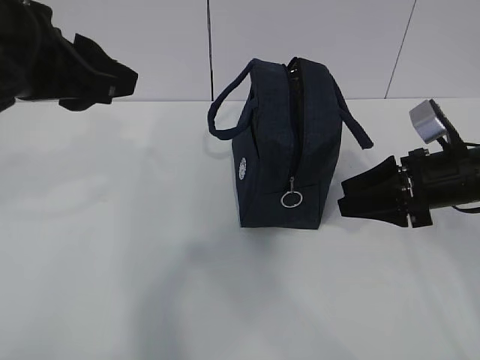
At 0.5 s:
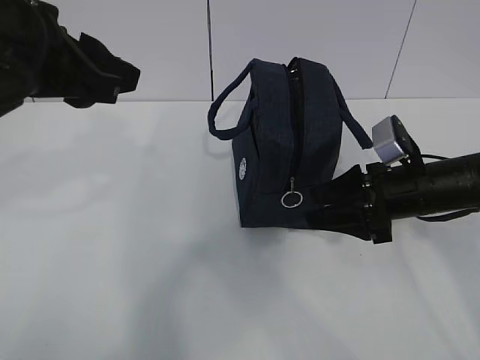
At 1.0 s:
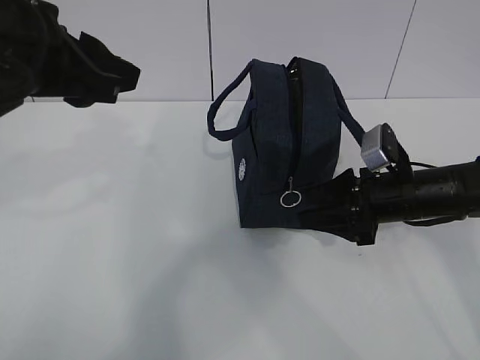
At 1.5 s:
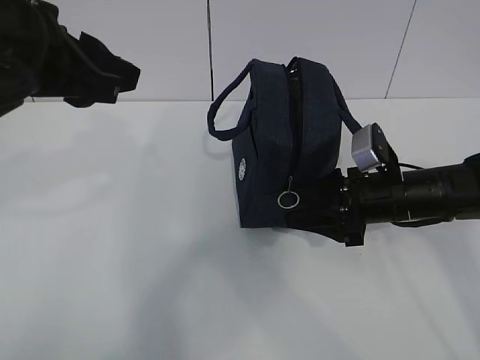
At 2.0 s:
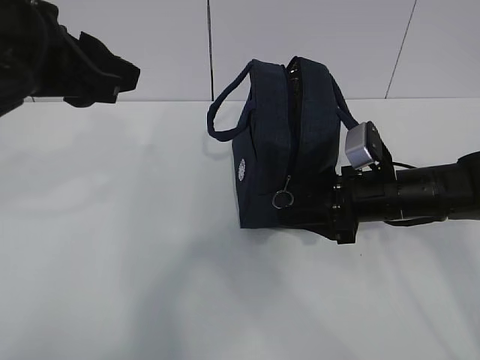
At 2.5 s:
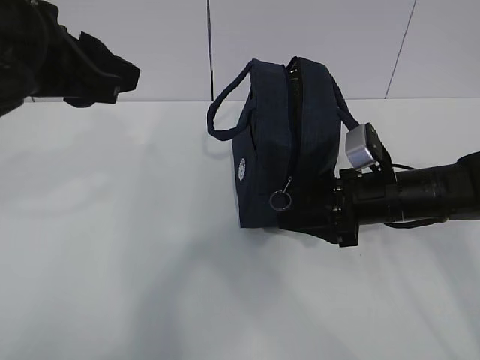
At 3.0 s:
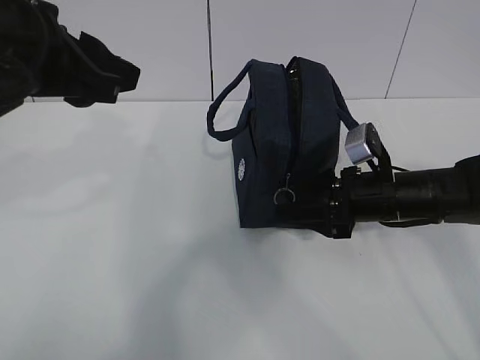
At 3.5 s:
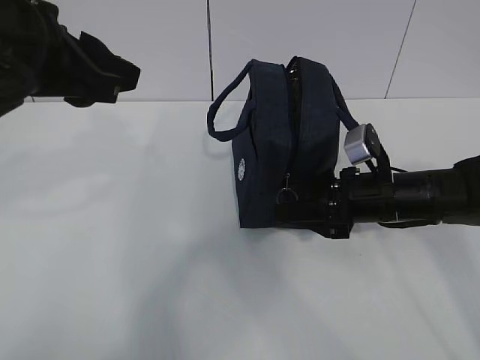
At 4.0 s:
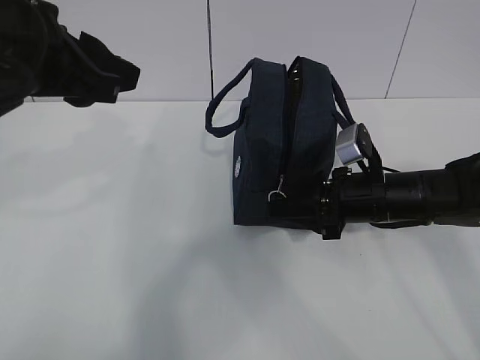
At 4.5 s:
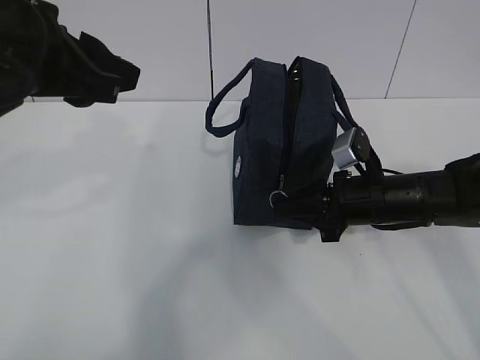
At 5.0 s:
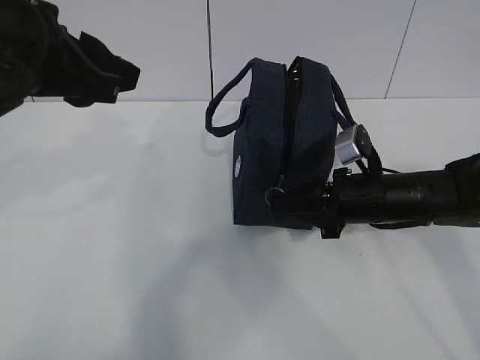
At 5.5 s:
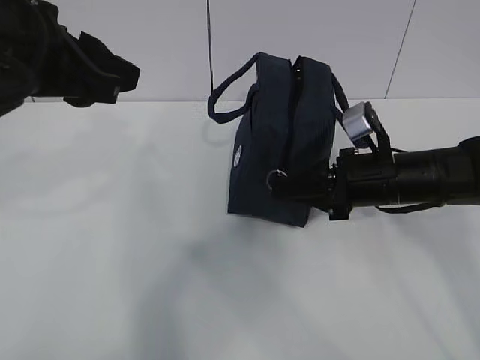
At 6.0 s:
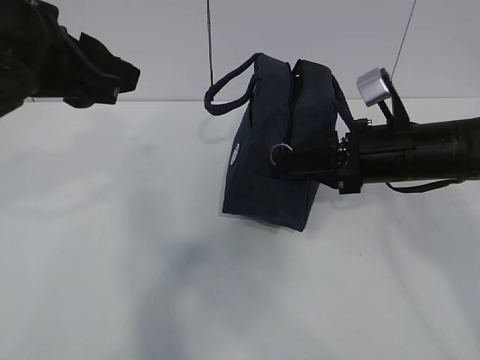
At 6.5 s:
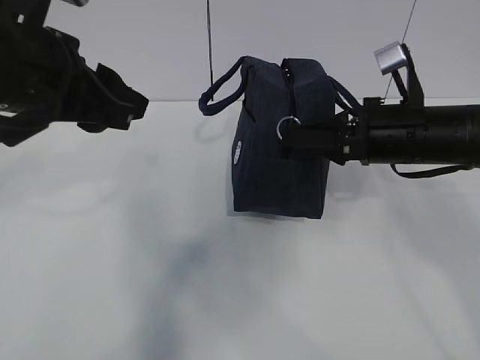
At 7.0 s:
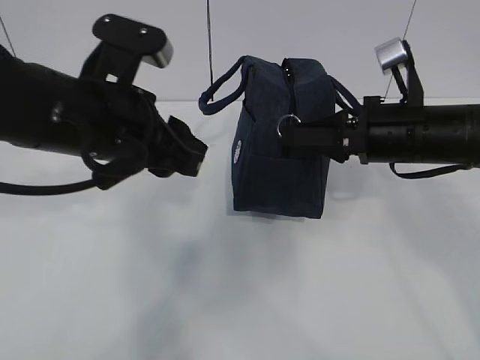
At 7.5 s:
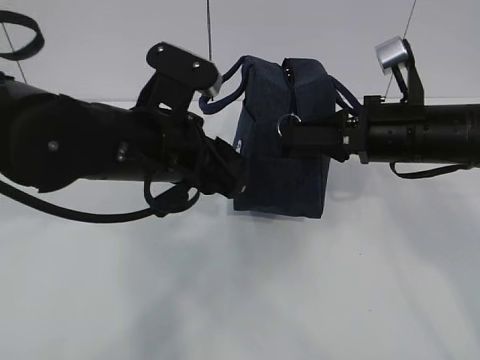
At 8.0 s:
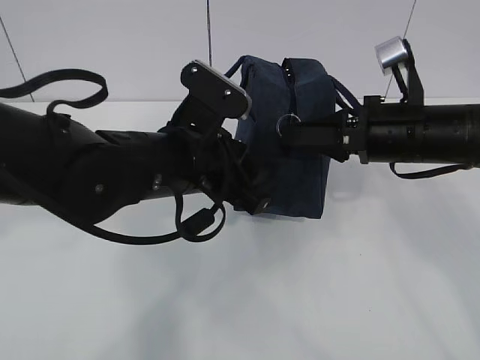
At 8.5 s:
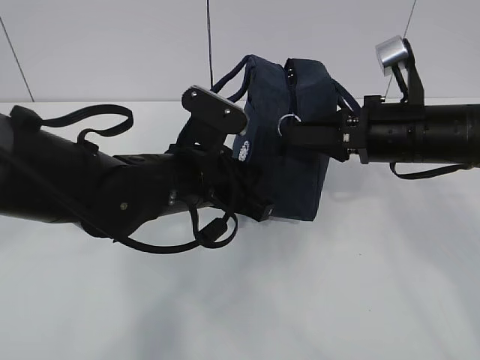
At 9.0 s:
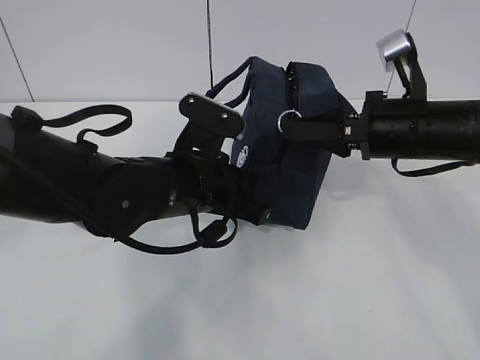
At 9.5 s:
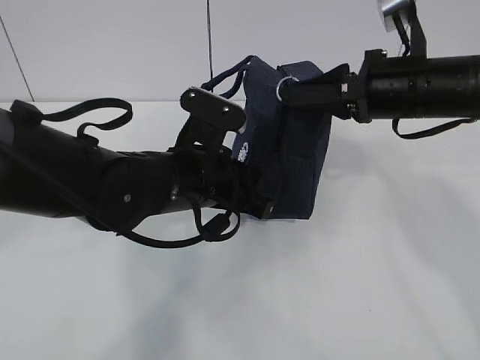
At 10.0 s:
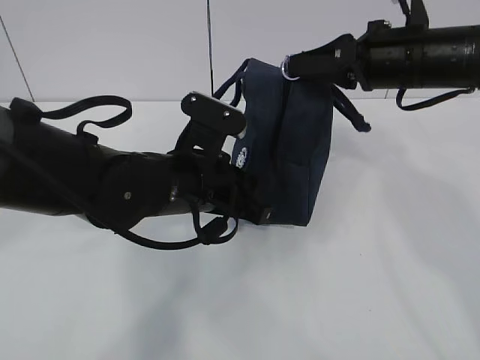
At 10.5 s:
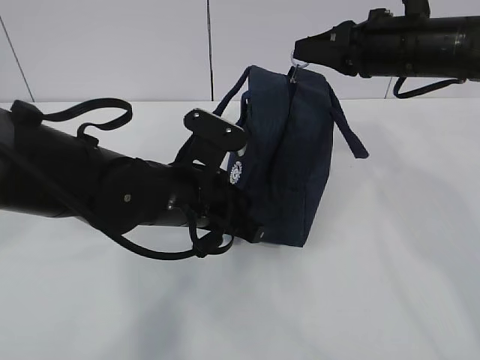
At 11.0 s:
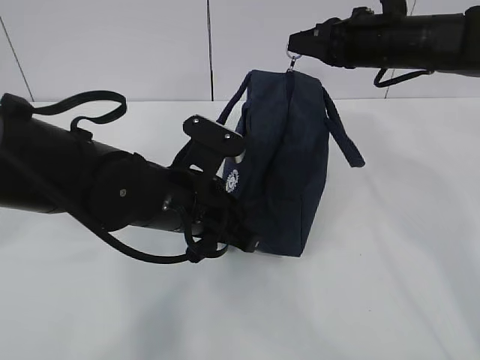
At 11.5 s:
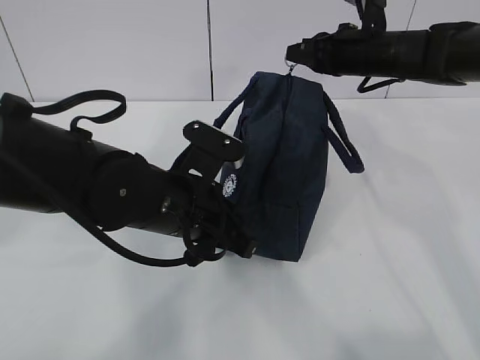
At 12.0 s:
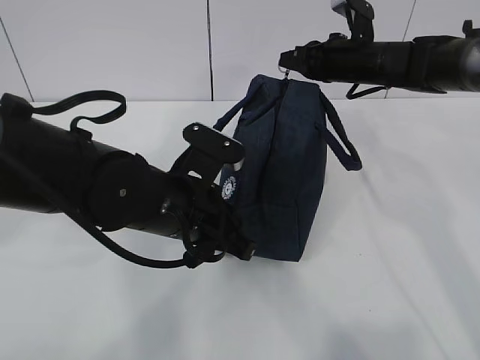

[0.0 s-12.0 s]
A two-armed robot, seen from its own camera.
Step, 1.5 to 5.5 s: Pull the zipper with your right hand.
Step, 6.0 to 7.0 s: Grab the lunch bag with your left hand.
0.0 to 2.0 s: The right gripper goes roughly 5 cm to the left.
2.0 to 4.0 s: The grippers make only small movements.
4.0 to 6.0 s: The right gripper goes approximately 10 cm upward, and closes its fingers.
6.0 to 8.0 s: The left gripper goes approximately 15 cm downward and to the right.
8.0 to 10.0 s: The right gripper goes some 5 cm upward. The left gripper closes its fingers.
10.0 to 12.0 s: The right gripper shifts some 15 cm forward and downward.

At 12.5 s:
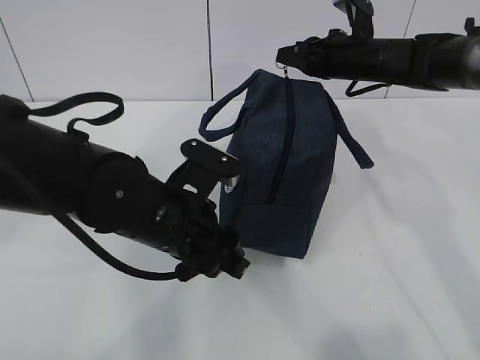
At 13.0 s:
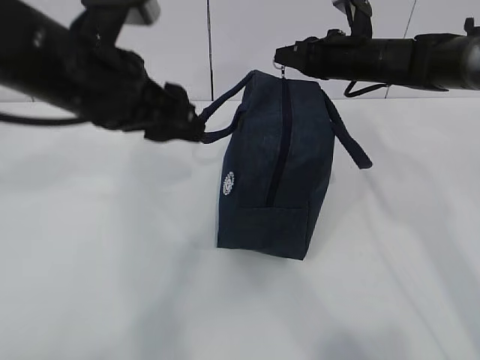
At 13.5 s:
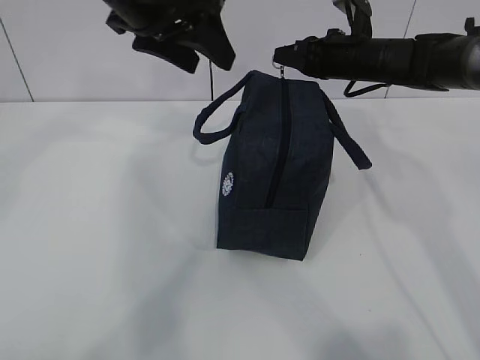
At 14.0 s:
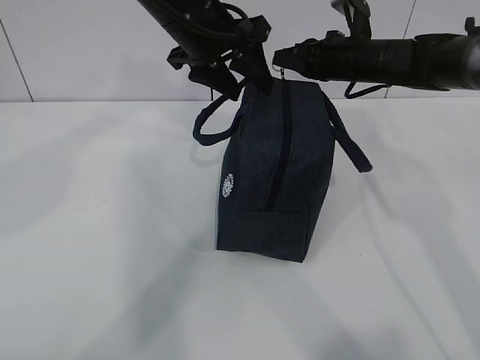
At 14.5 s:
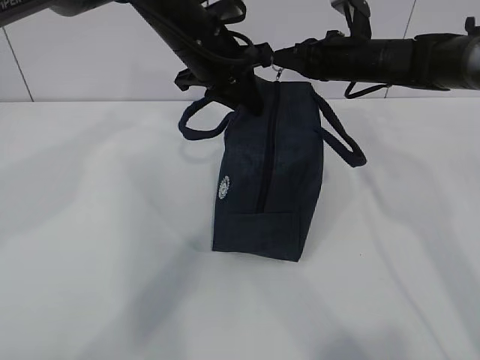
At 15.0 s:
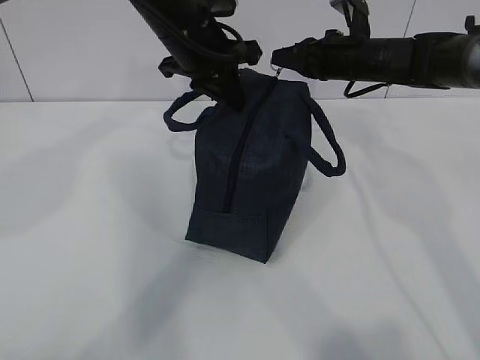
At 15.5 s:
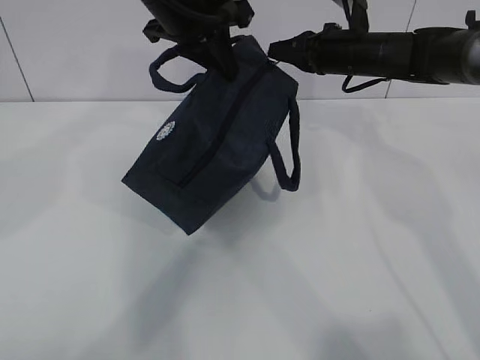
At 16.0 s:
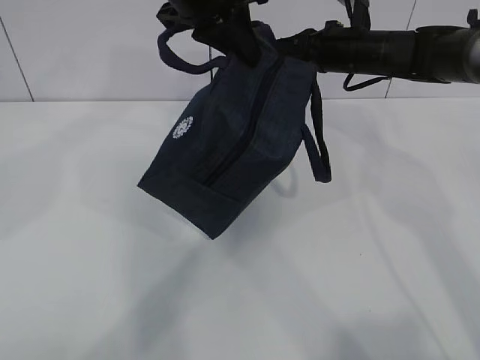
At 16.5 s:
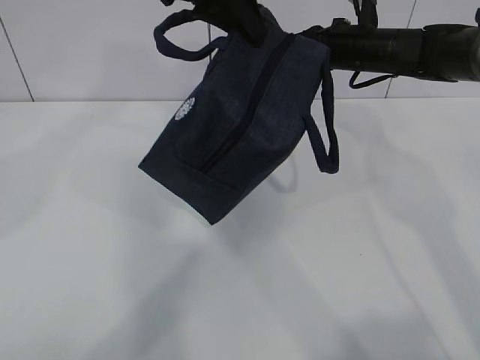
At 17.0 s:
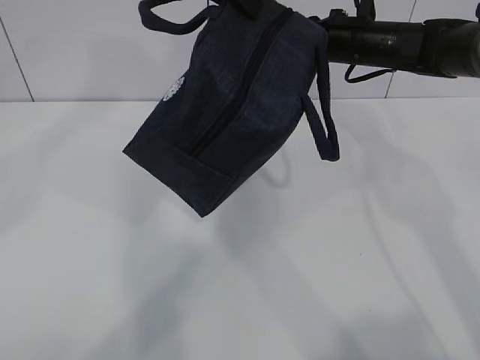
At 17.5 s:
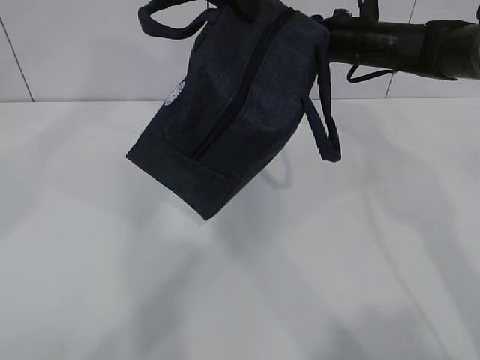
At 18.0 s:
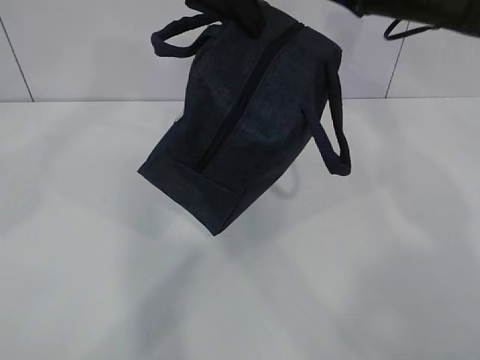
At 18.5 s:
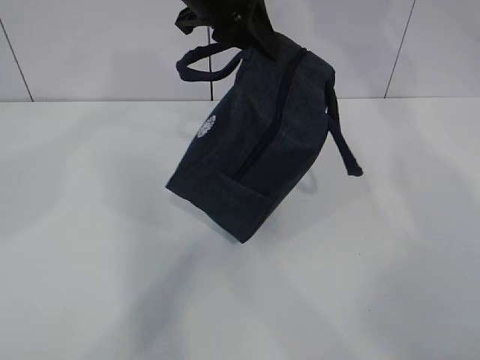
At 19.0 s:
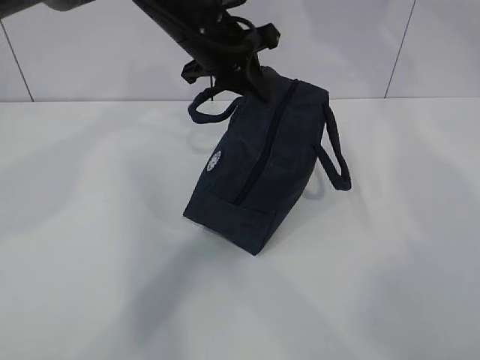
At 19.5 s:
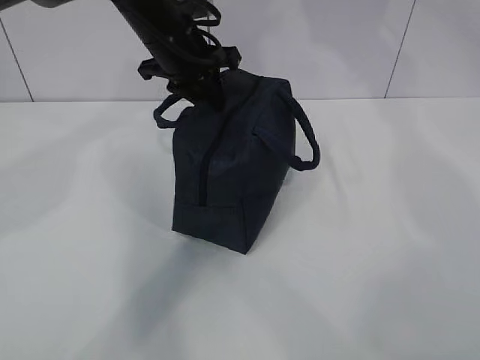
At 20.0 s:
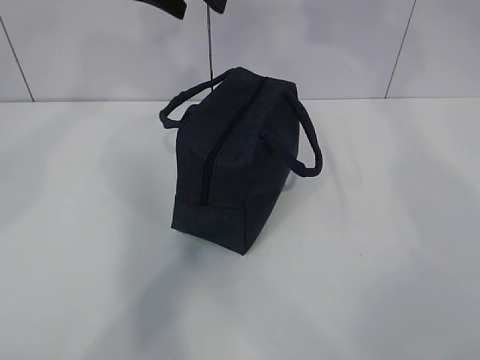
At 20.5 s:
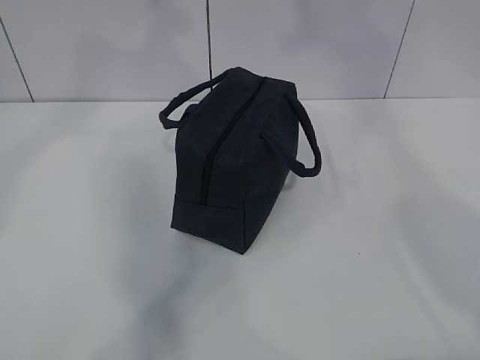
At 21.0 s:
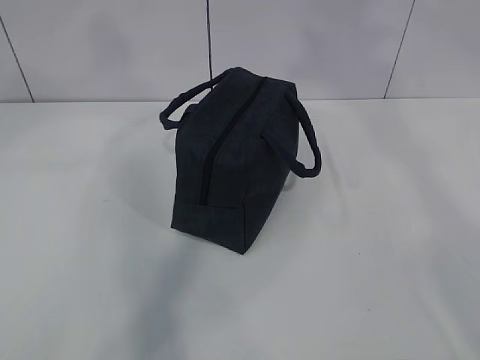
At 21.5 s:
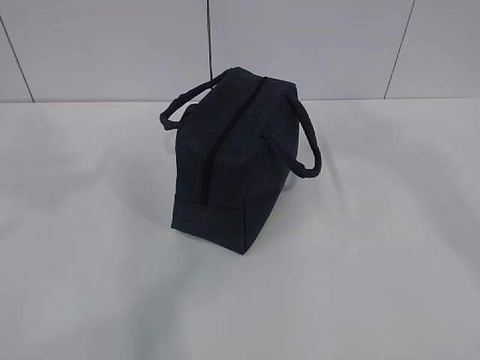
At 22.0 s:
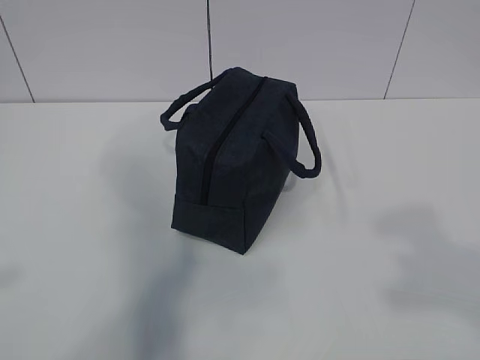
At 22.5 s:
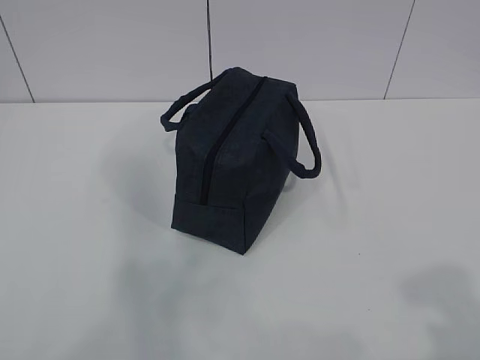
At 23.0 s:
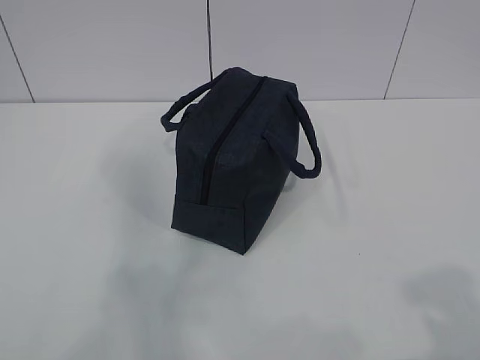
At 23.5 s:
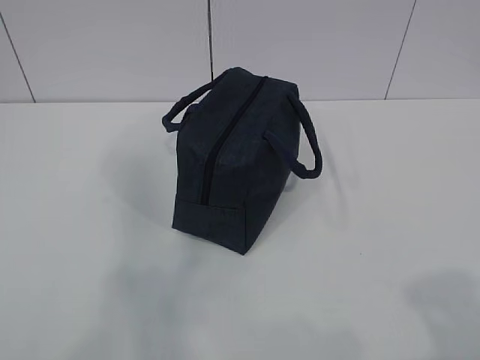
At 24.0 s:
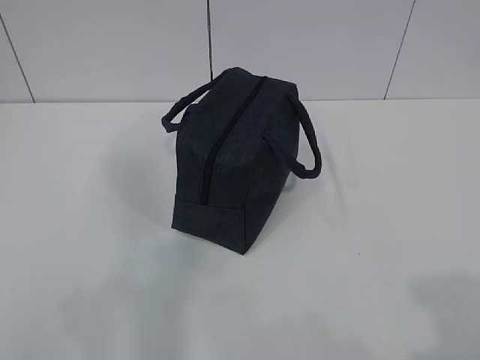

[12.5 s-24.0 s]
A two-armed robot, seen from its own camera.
12.5 to 14.5 s: The left gripper moves forward and upward, about 20 cm, and closes its fingers.
14.5 to 16.5 s: The left gripper shifts some 15 cm upward and backward.
16.5 to 18.5 s: The right gripper moves upward and to the right, some 20 cm, and opens.
18.5 to 20.0 s: The left gripper is displaced to the left by roughly 5 cm, travels downward and back again, about 10 cm each way, and opens its fingers, while the right gripper moves some 5 cm.
20.0 to 22.0 s: The left gripper heads backward and to the left, covering some 40 cm. The right gripper moves backward, roughly 40 cm.
22.0 to 24.0 s: The grippers both shift downward by about 10 cm.

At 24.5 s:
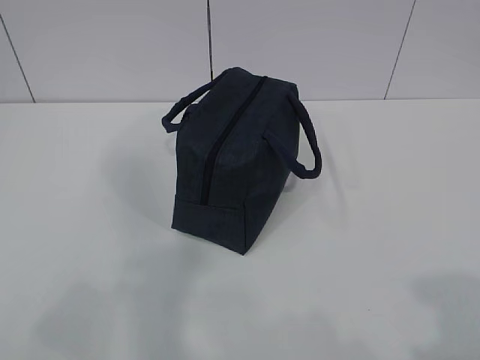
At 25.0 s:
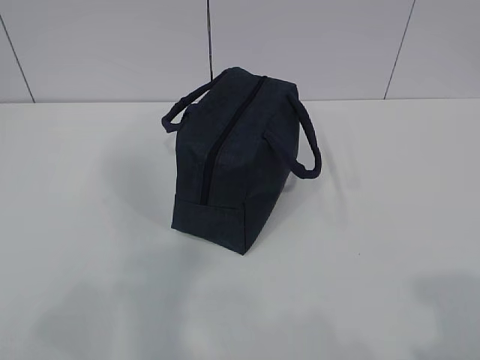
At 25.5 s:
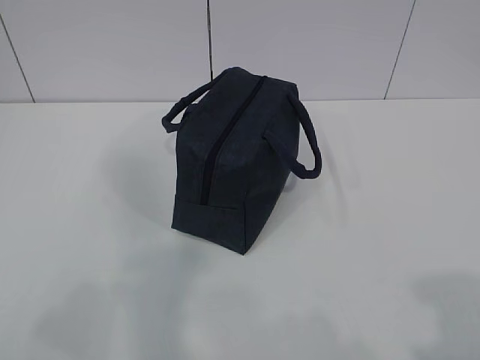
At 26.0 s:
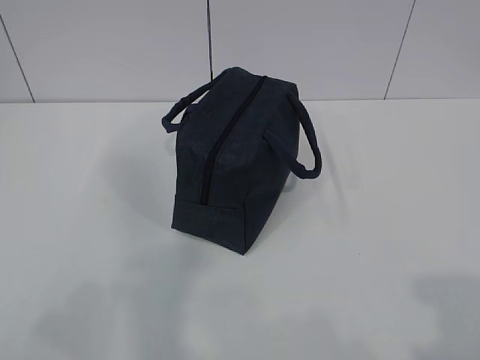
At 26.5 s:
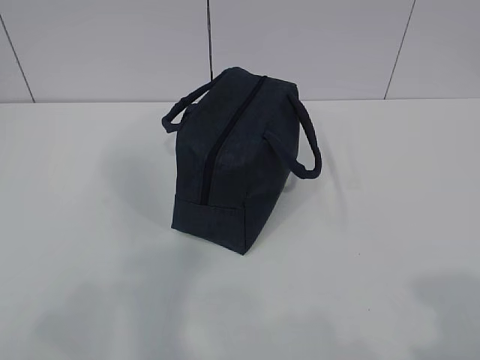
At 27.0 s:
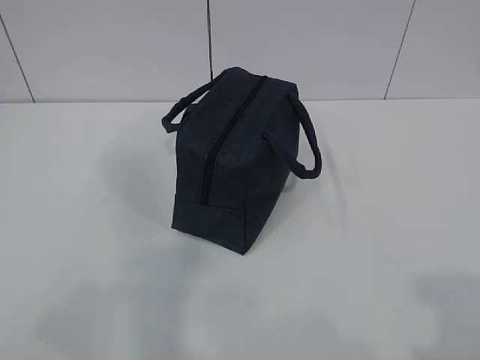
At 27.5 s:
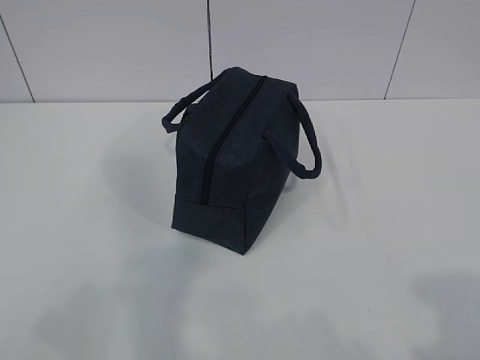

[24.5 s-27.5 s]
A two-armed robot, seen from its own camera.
24.5 to 27.5 s: Neither gripper changes place.
